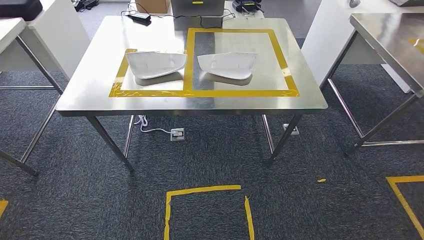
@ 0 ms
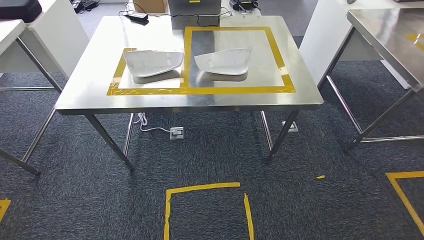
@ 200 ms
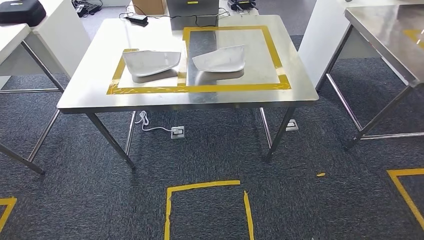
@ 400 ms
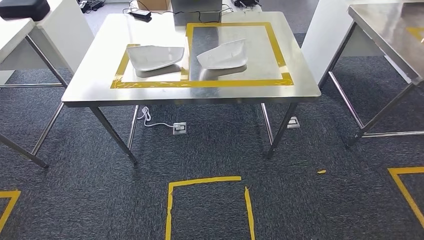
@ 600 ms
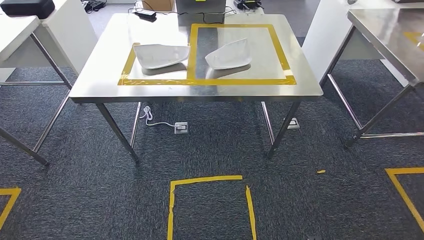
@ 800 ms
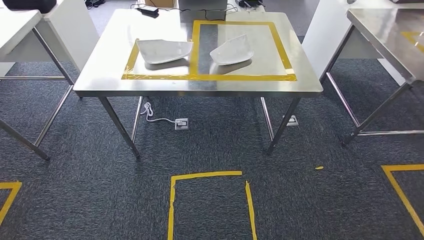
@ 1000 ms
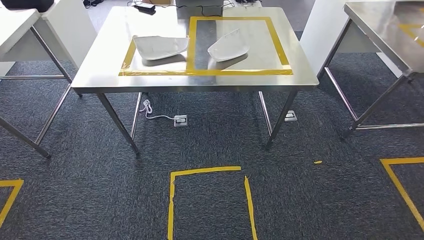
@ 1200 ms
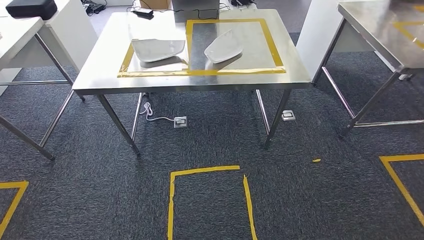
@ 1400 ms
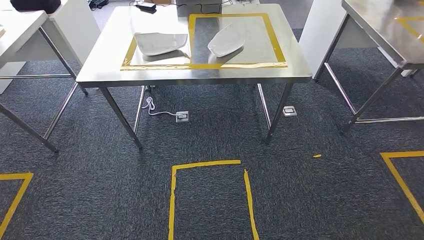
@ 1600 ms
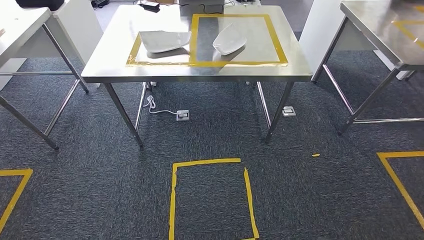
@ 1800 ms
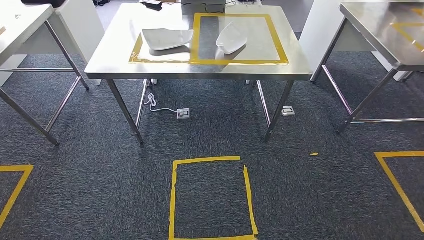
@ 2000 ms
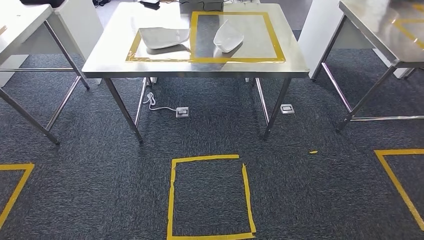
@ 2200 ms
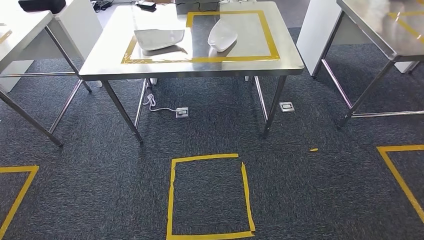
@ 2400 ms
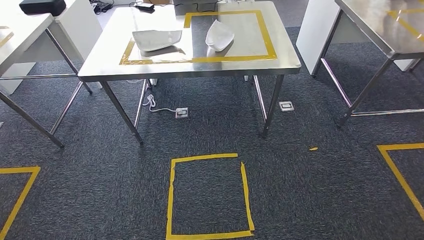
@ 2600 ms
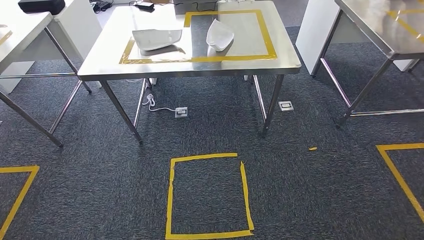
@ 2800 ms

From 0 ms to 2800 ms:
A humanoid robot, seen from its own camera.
Step, from 0 ms to 2800 ms: Return to the initial position at the workbench.
